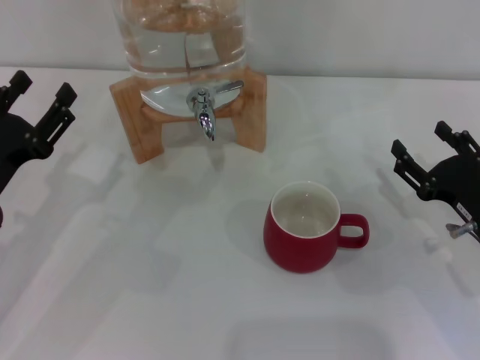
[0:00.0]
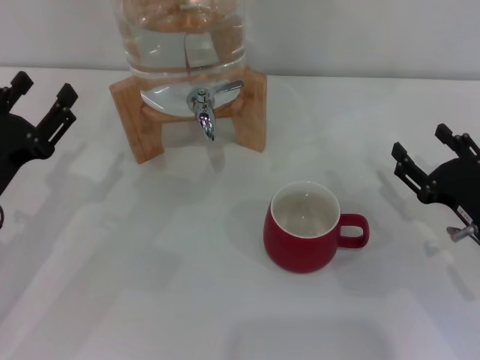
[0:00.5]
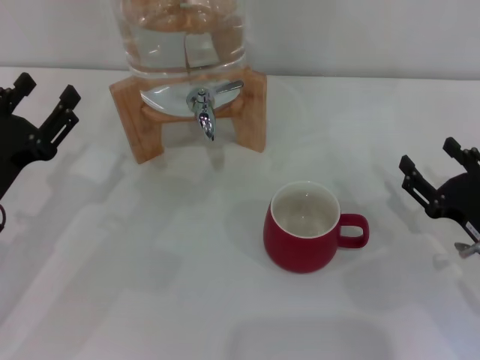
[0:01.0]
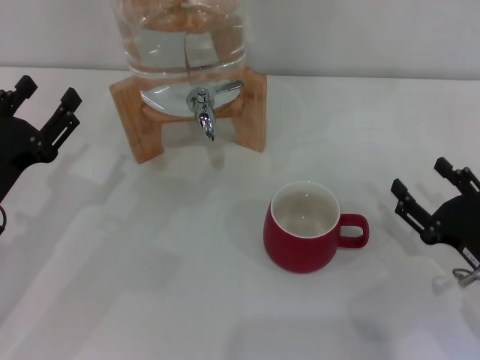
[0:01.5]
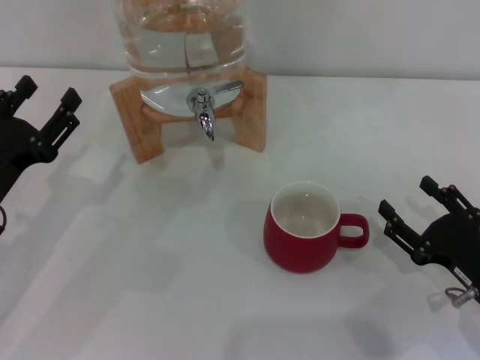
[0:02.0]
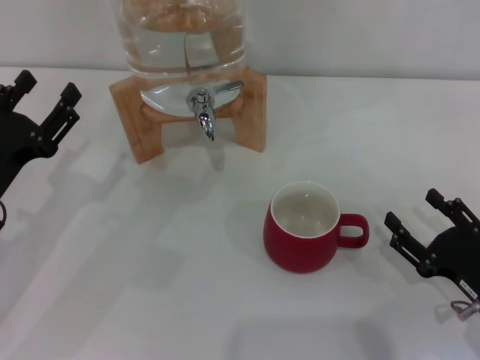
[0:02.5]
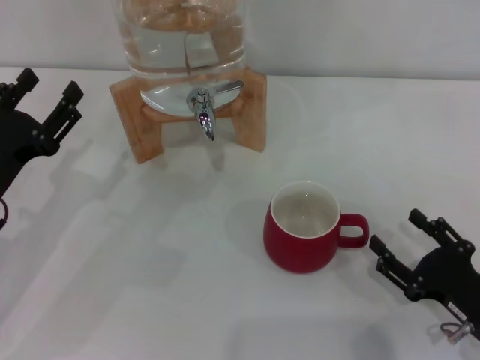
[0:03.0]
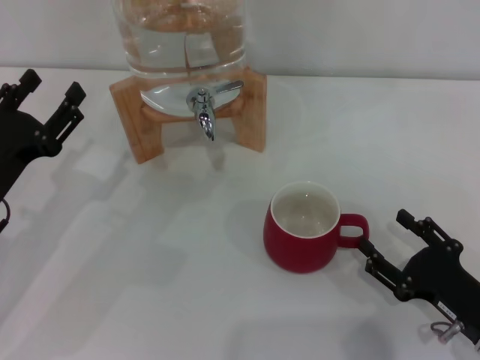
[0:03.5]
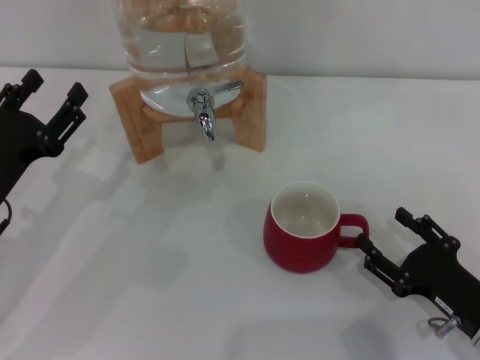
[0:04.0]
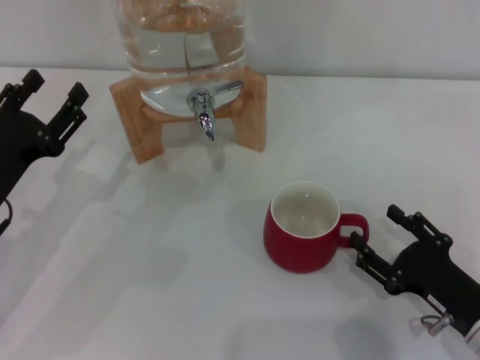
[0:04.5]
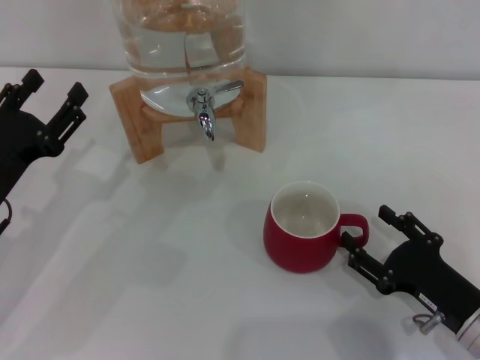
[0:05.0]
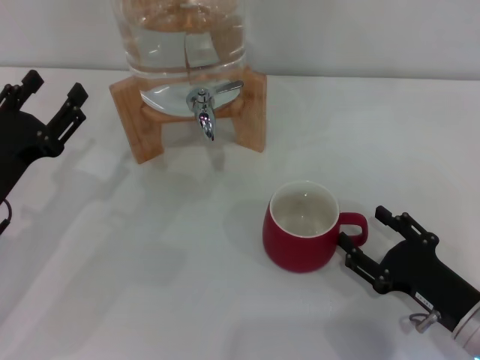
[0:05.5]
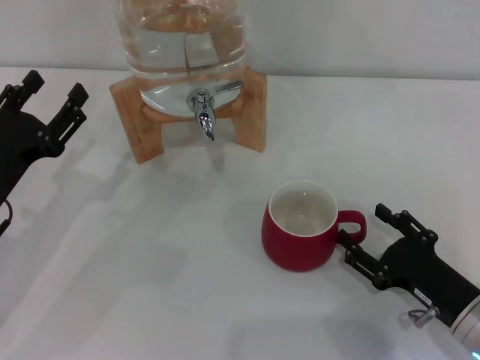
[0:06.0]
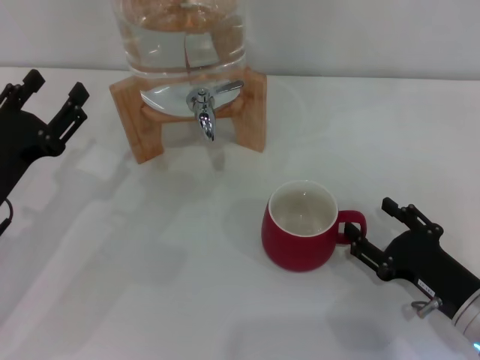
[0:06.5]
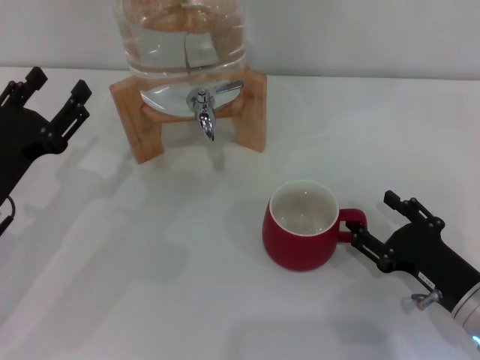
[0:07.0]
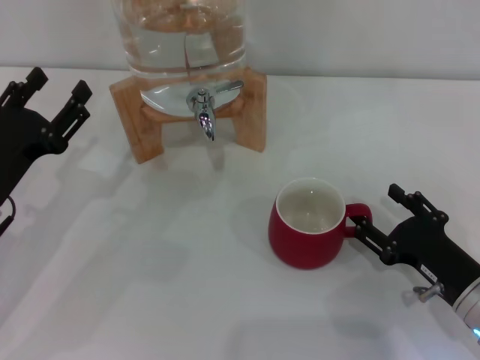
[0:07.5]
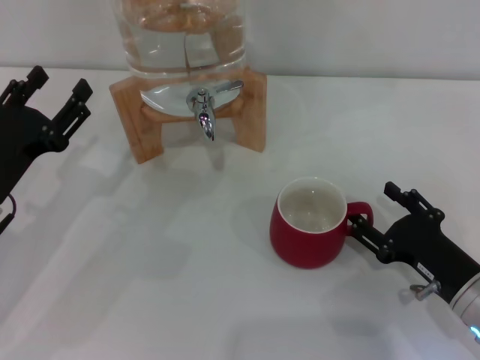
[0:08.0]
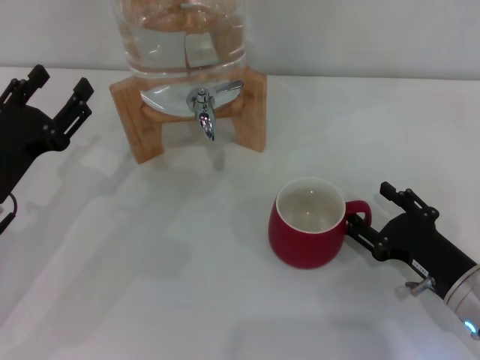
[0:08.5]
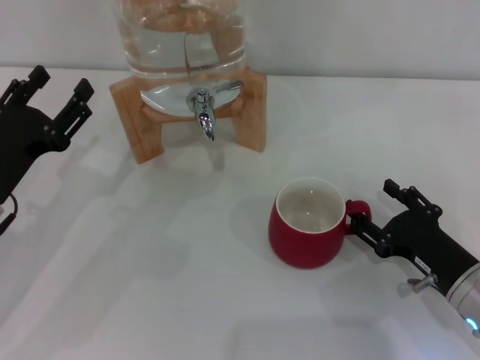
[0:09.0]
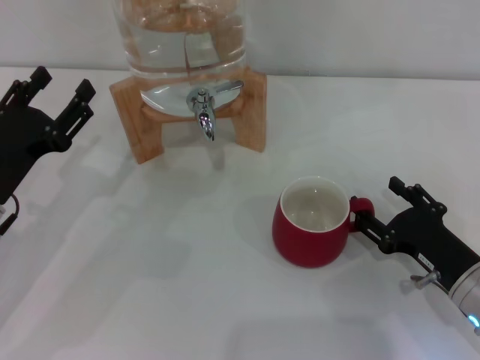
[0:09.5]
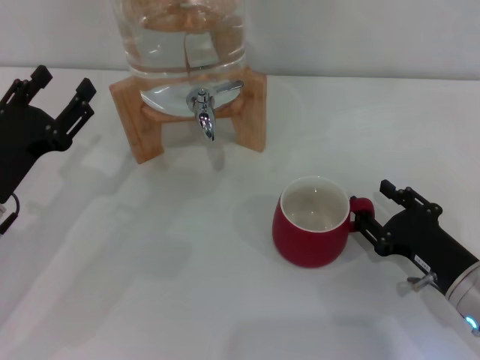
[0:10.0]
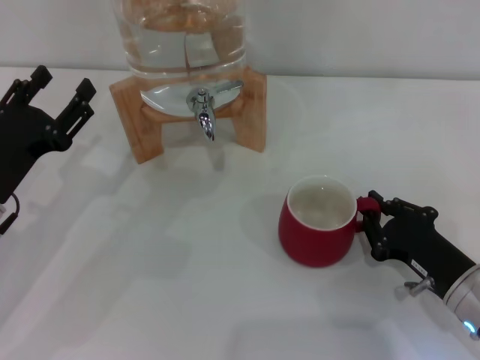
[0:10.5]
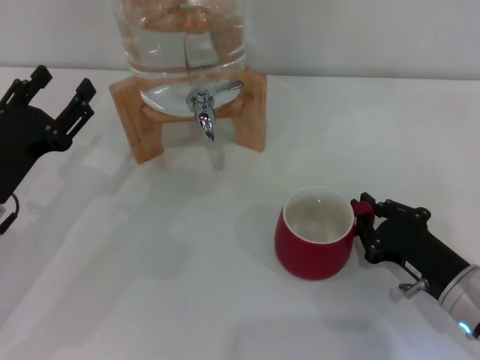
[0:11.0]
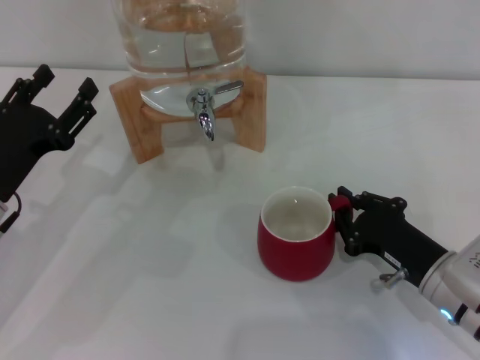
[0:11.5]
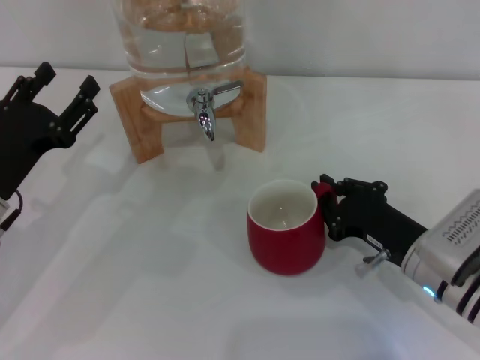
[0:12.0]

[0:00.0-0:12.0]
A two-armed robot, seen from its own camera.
Task of the whole recording: the right gripper pick up the red cup and place it horizontally under the faucet, the left gripper turn on the faucet to fill the cup, and then turn off the faucet.
0:00.0 to 0:02.0: The right gripper is displaced backward by some 5 cm.
0:02.0 to 0:08.0: The grippers stay close to where they were, moving slightly.
0:08.0 to 0:10.0: Both grippers stay put.
0:10.0 to 0:12.0: The right gripper moves approximately 5 cm, and closes.

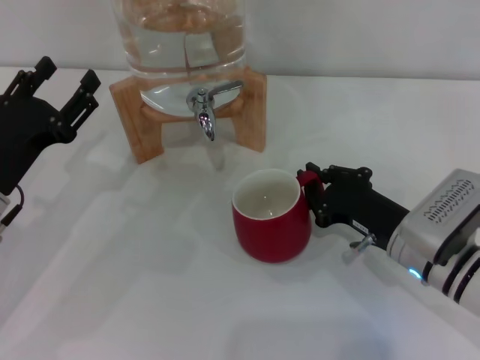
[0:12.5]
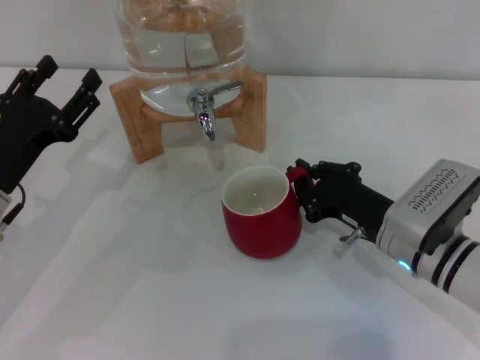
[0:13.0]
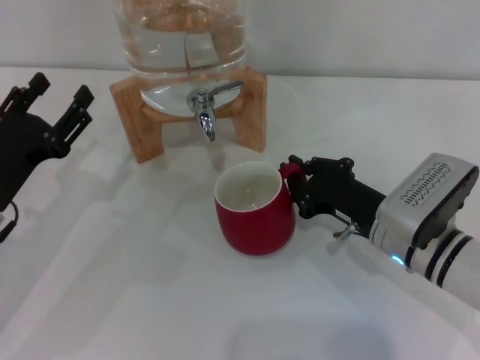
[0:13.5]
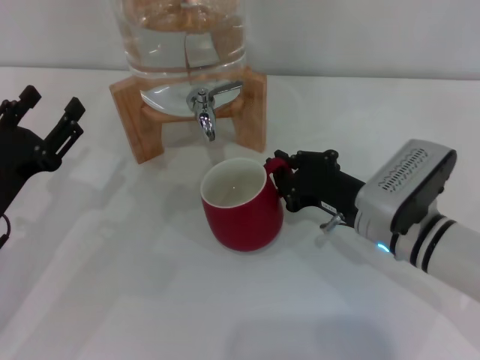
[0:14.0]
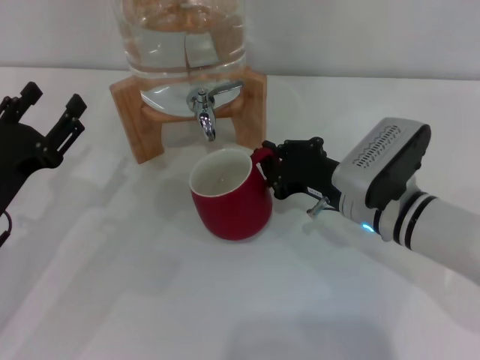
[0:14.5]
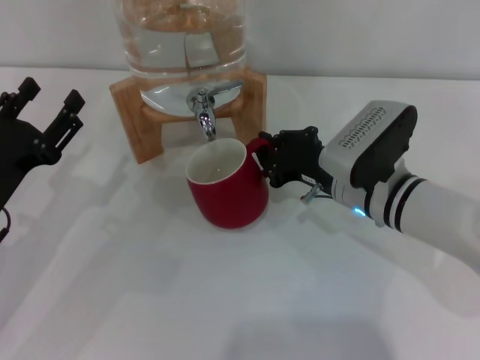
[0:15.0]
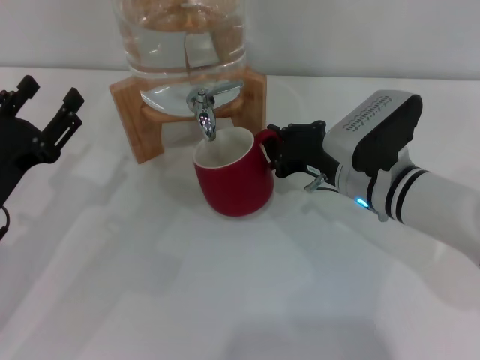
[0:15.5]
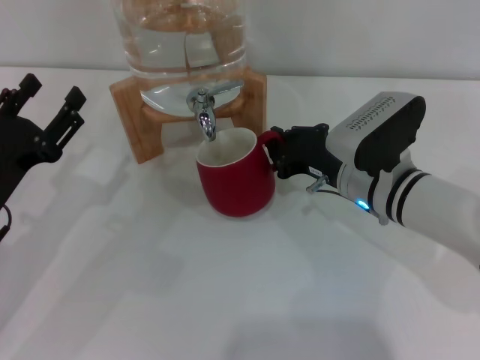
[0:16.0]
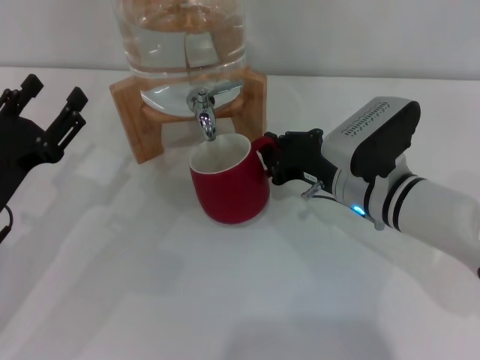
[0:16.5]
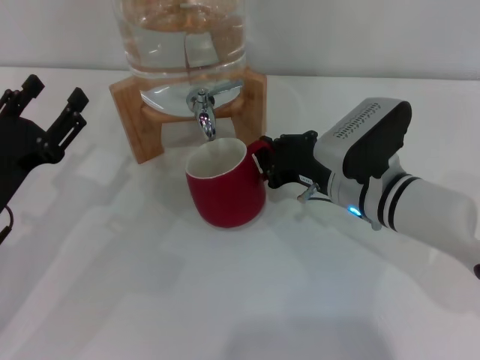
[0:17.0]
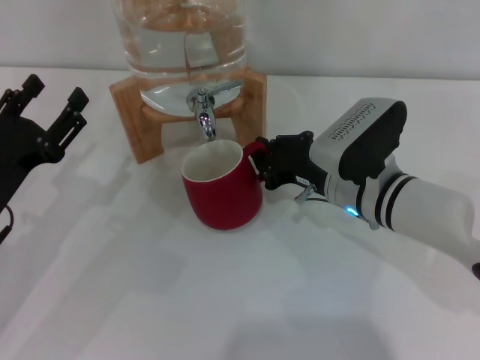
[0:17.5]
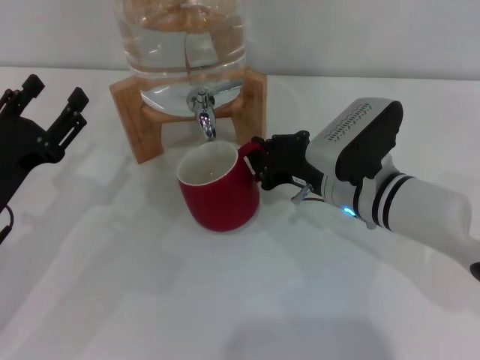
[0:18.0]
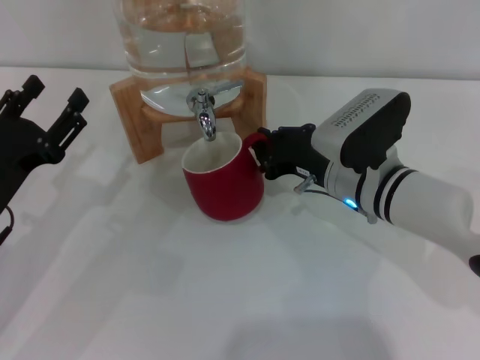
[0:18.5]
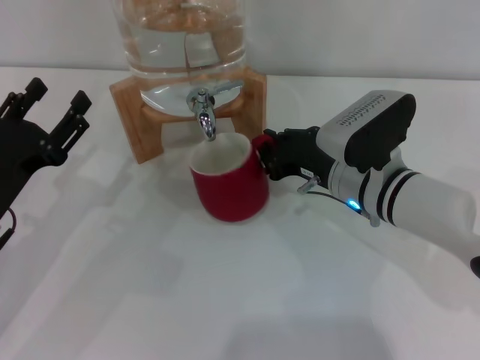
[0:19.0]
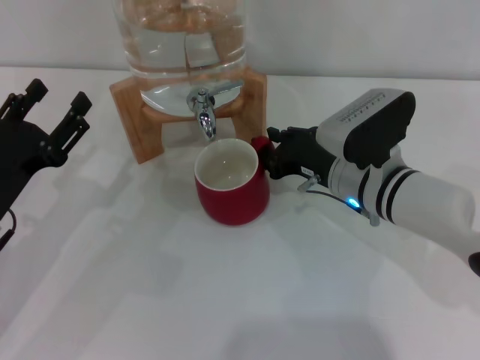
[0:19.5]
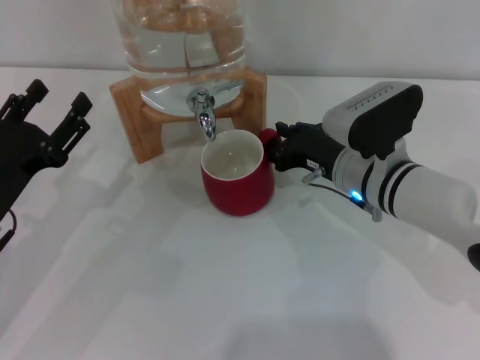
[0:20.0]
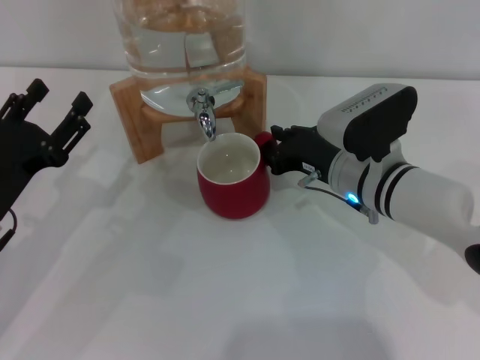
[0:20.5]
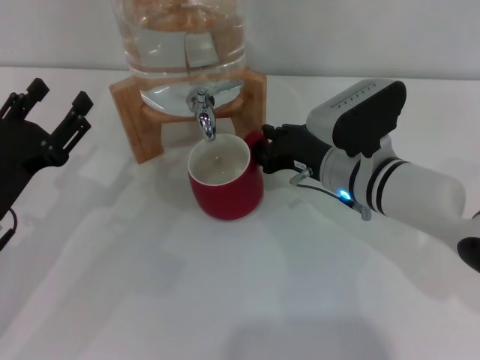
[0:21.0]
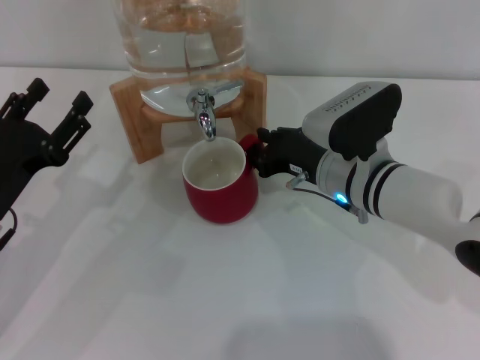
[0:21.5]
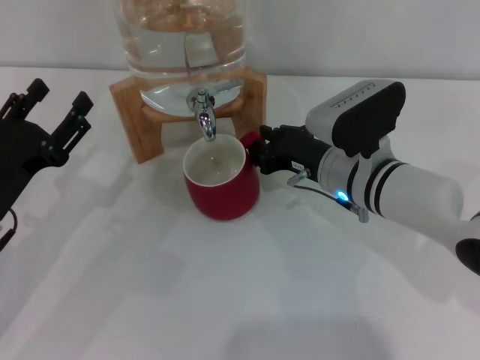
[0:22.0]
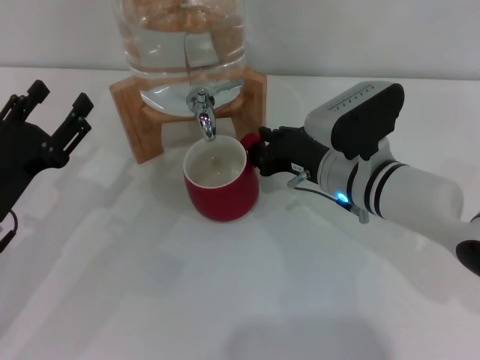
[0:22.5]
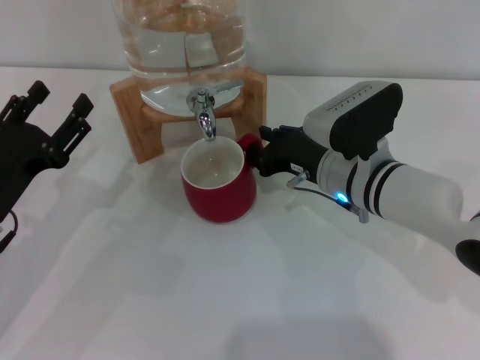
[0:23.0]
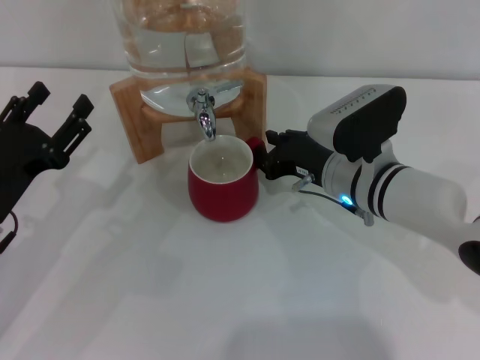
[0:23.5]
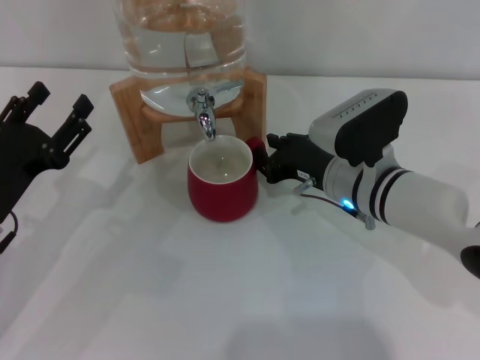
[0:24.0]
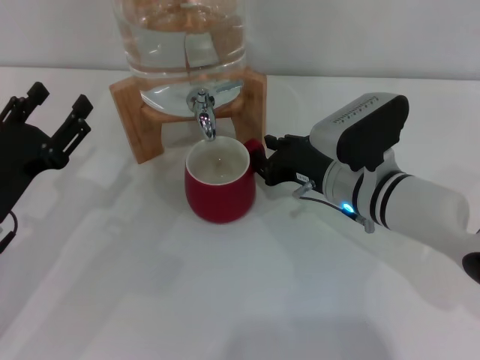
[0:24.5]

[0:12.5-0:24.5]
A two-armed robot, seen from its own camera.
Task of the whole recording: the right gripper pick up the red cup and place it horizontally under the faucet, the left gripper turn on the faucet to fill the cup, and then turn off the faucet.
0:12.5 to 0:14.5: The right gripper changes place by approximately 5 cm.
0:14.5 to 0:16.5: The grippers move only a little.
0:16.5 to 0:18.5: Both grippers stay about where they are.
0:18.5 to 0:20.5: The grippers move only a little.
0:20.5 to 0:24.5: Both grippers stay put.

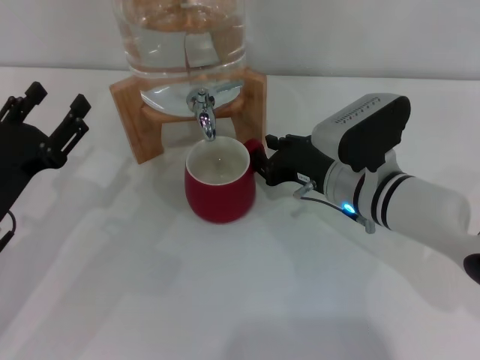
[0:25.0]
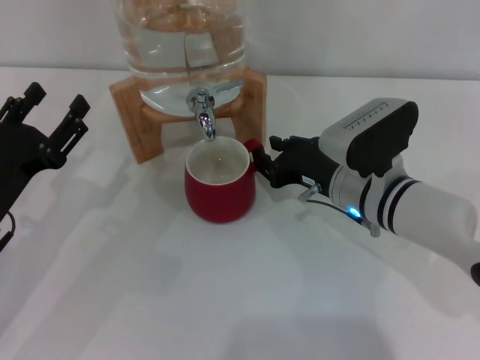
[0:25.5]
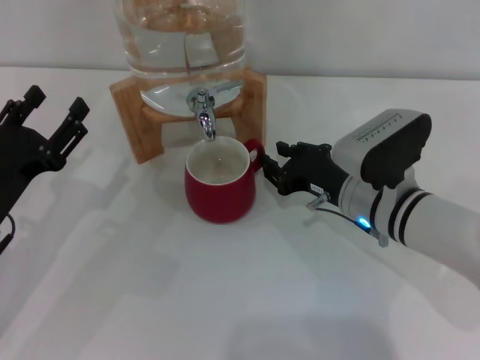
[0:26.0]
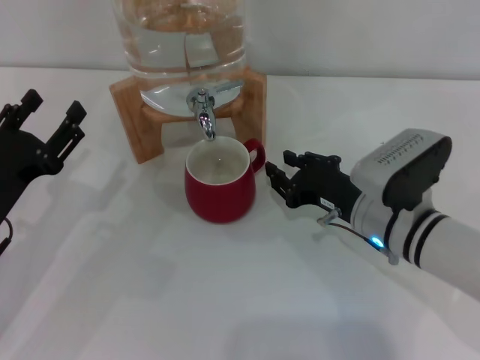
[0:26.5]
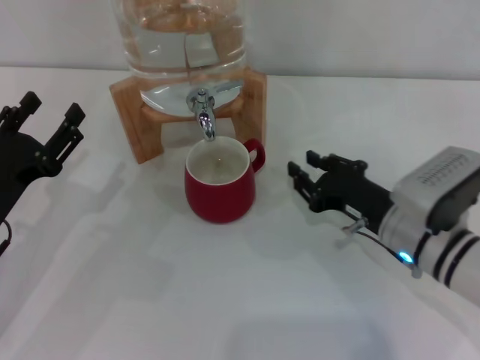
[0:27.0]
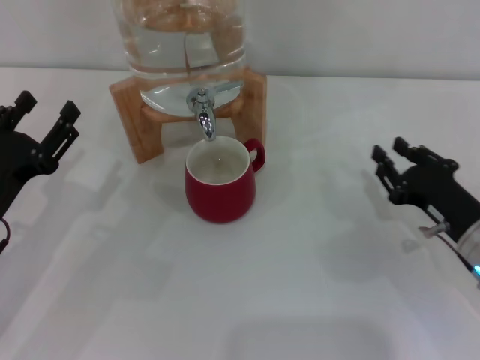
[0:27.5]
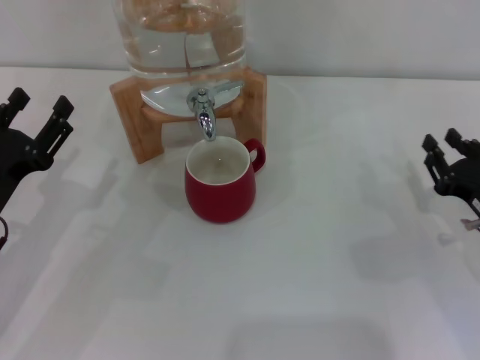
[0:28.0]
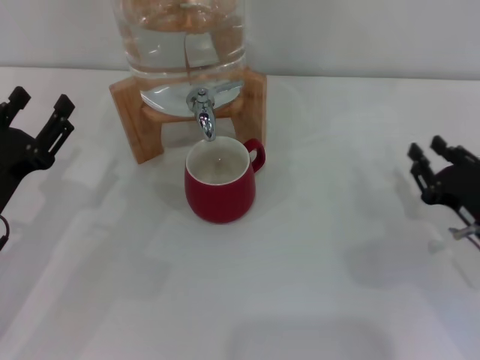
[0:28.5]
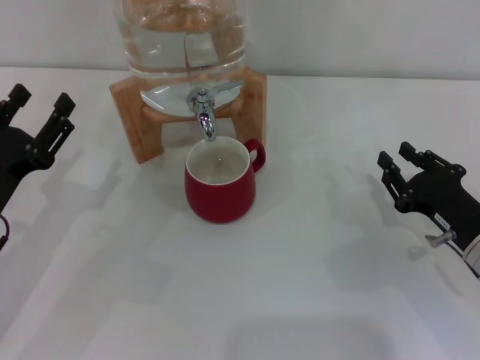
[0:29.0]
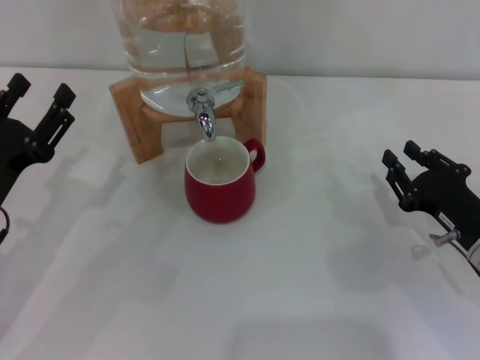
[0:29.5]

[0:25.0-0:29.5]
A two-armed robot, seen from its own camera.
Task of the whole recording: the right gripper pick up the red cup and place it horizontally under the faucet, the left gripper turn on the faucet to fill the cup, and then turn off the faucet.
0:25.0 to 0:27.0: The right gripper travels to the right and backward by some 10 cm.
0:27.0 to 0:29.5: The right gripper goes some 10 cm to the right.
